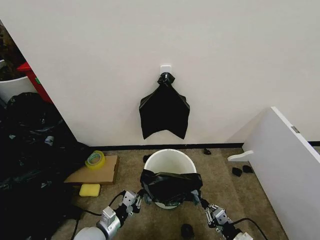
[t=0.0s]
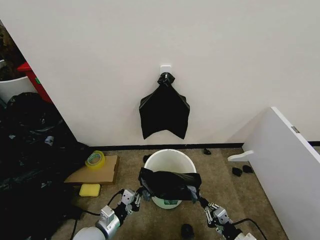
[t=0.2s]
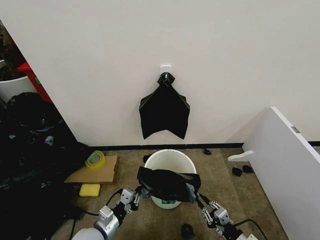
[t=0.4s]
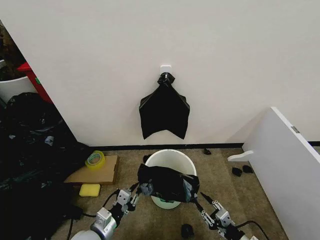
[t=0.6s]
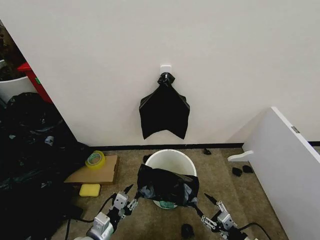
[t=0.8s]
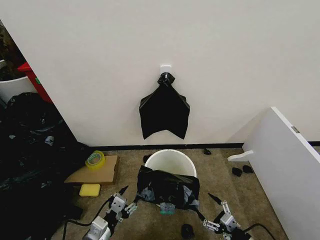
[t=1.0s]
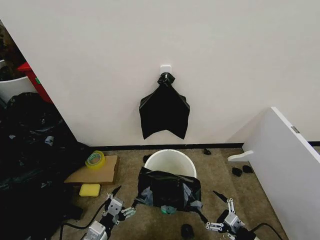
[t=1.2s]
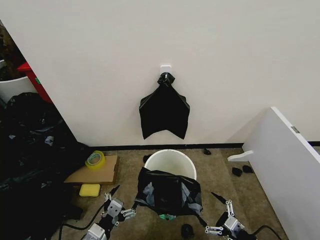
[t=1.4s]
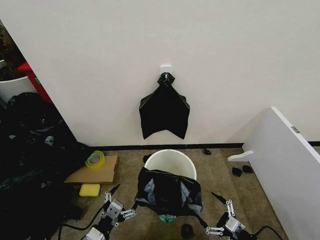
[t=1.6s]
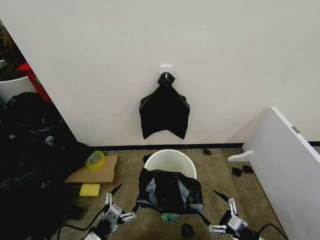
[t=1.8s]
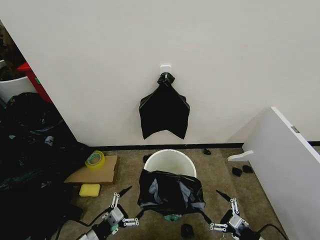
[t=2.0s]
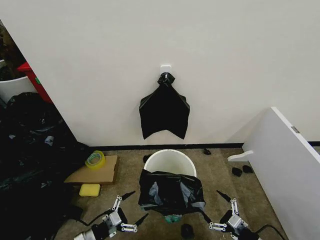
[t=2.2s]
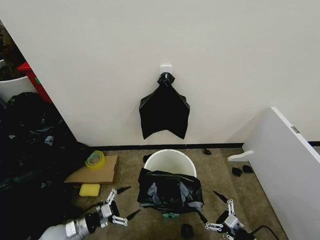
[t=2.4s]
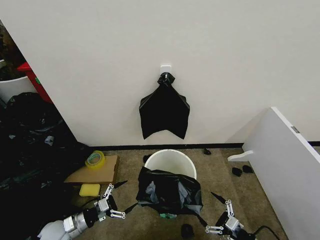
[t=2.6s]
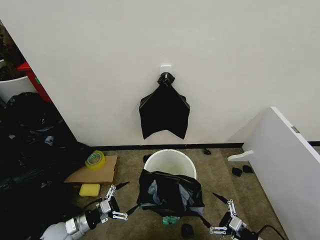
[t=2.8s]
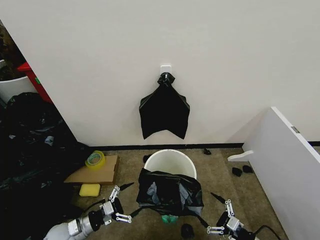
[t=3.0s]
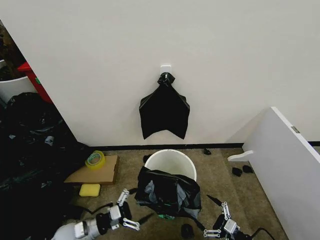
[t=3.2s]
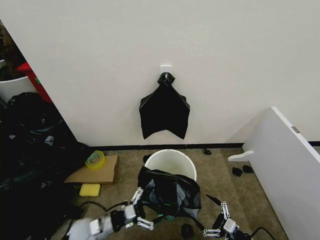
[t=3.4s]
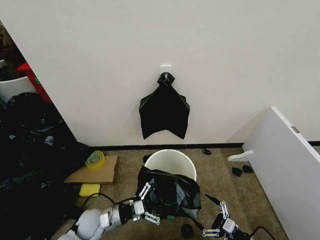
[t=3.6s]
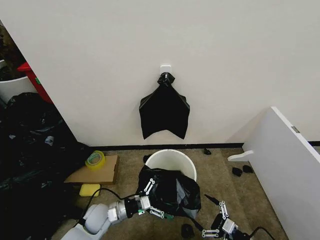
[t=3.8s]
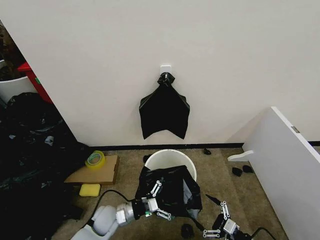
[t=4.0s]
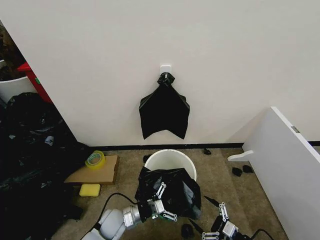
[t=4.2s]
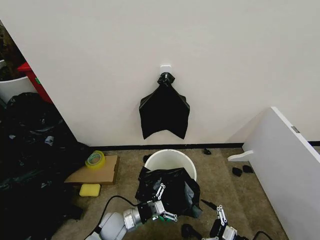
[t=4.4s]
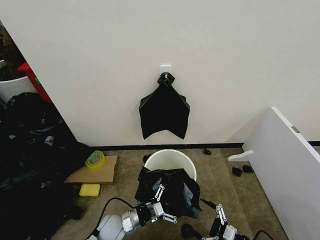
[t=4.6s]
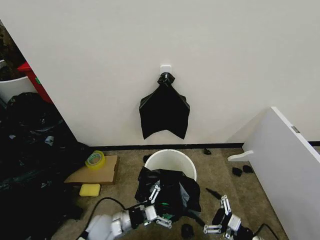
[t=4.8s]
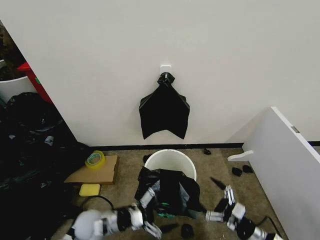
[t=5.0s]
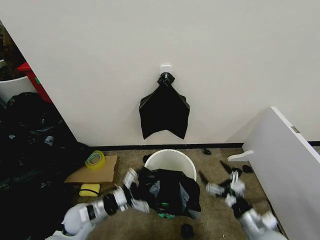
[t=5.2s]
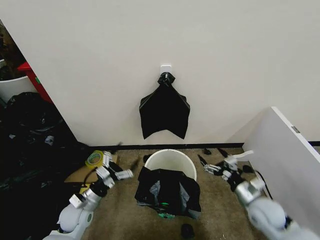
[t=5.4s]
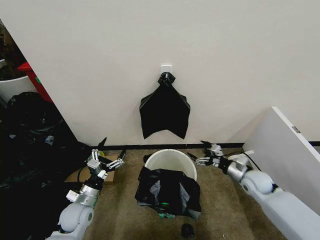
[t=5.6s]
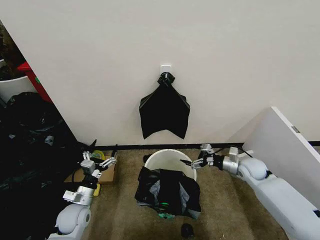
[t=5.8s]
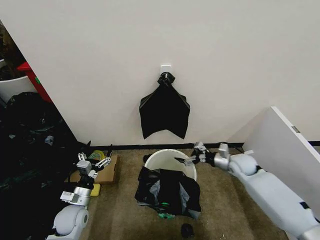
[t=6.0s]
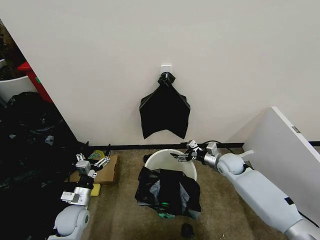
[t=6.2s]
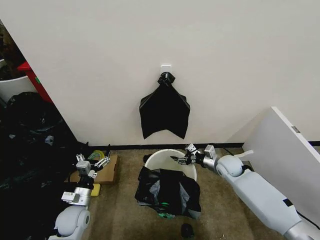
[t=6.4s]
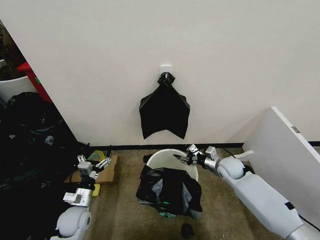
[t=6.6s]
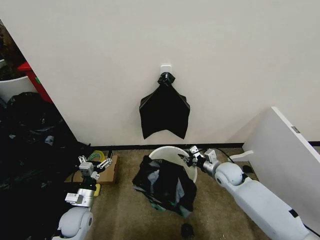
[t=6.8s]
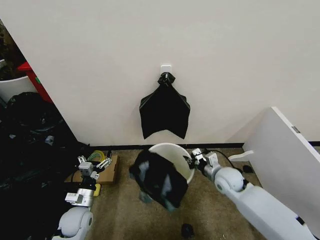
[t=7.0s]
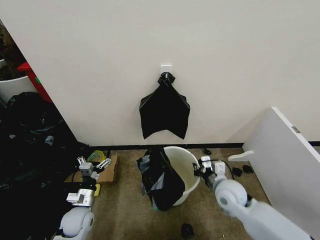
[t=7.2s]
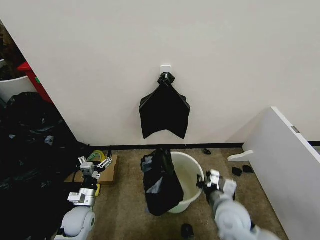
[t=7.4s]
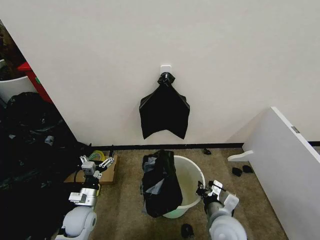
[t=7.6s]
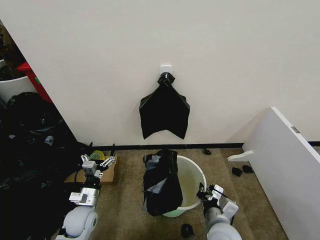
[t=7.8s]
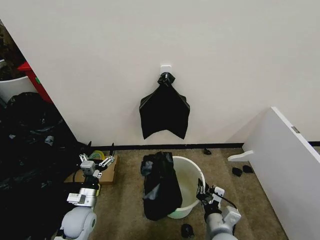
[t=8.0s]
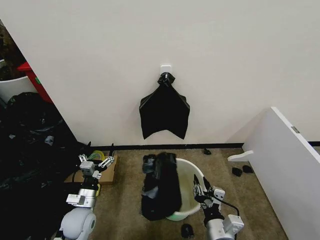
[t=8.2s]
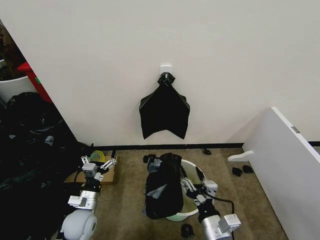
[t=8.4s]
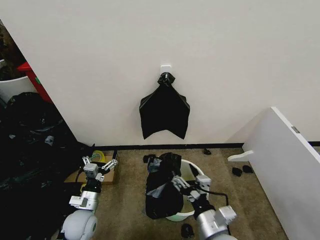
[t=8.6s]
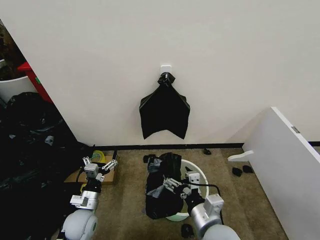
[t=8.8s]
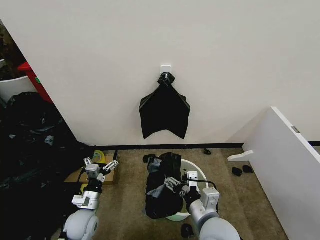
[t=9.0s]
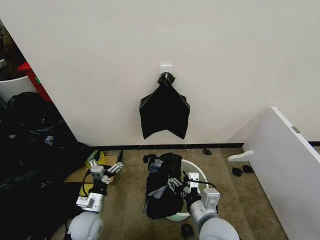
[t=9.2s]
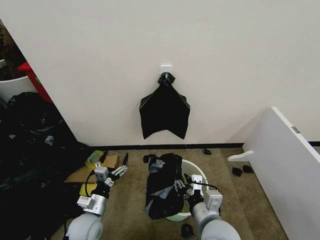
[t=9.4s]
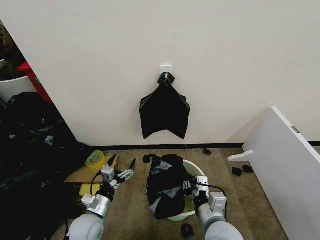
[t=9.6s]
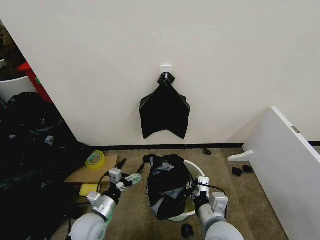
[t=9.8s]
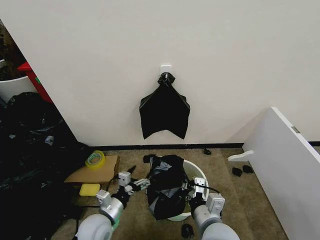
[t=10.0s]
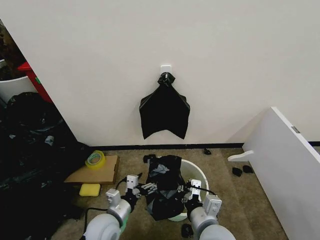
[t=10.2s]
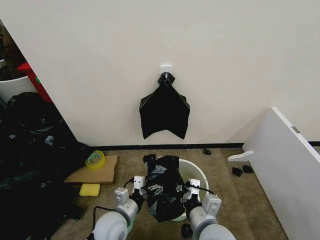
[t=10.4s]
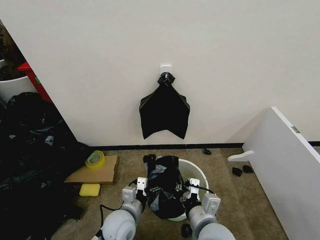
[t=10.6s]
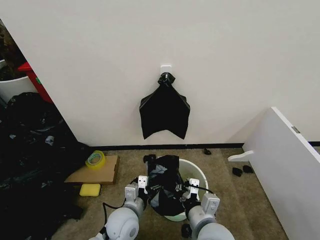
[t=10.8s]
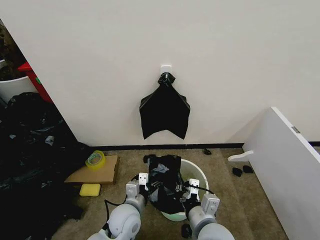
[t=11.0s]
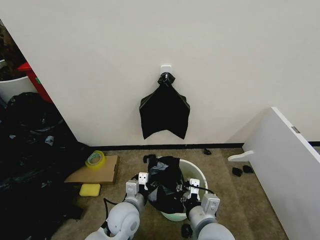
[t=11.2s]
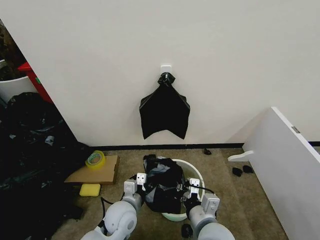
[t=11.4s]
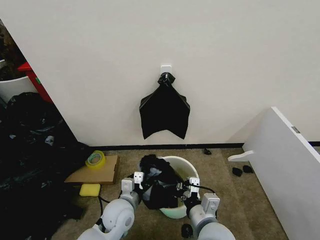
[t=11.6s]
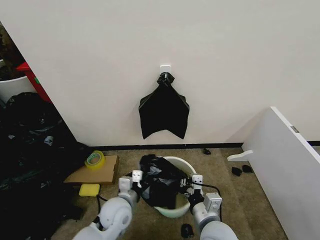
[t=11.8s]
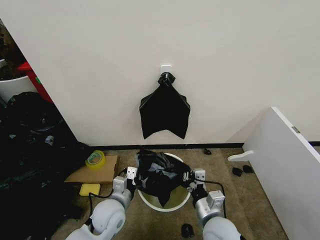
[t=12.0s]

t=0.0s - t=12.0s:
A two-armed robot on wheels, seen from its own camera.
Task of the whole recording: Place the garbage bag over the trash bin.
t=0.0s - t=1.6s: The left gripper travels backward and upward by roughly 10 cm, and opens its fingers. Meanwhile the right gripper changes place by approximately 5 cm, and opens up.
t=1.6s - t=3.0s: The left gripper shifts about 15 cm to the left, forward and downward.
t=3.0s - t=4.4s: The left gripper heads to the right, covering about 15 cm.
t=4.4s - t=6.0s: The left gripper is displaced to the left by roughly 15 cm. Meanwhile the right gripper travels forward by about 30 cm.
t=6.0s - t=7.6s: The right gripper shifts about 25 cm backward and to the left, and closes its fingers.
t=7.6s - t=9.0s: The right gripper shifts about 10 cm upward and to the left, and opens.
t=9.0s - t=10.4s: The right gripper closes its fingers, while the left gripper goes approximately 10 cm to the right.
t=10.4s - t=12.0s: The right gripper ends up roughly 5 cm from where it was, while the left gripper closes.

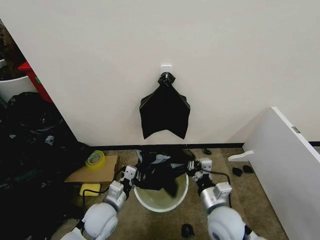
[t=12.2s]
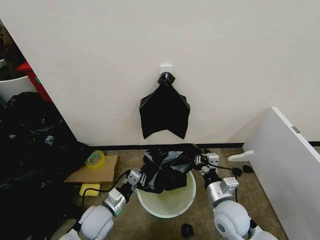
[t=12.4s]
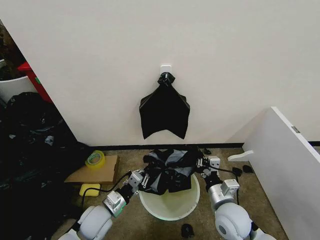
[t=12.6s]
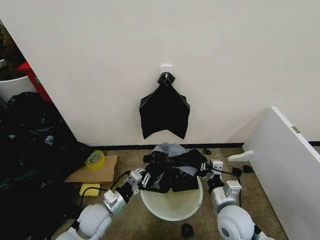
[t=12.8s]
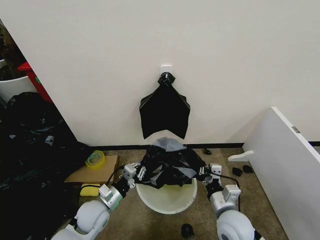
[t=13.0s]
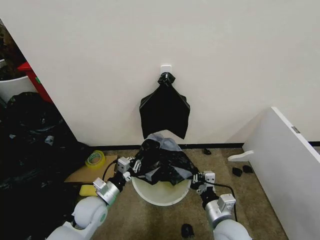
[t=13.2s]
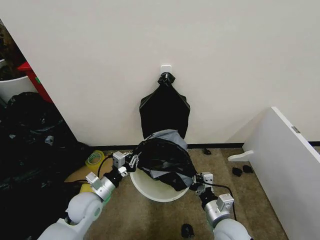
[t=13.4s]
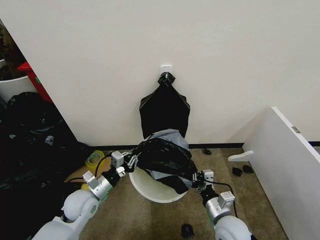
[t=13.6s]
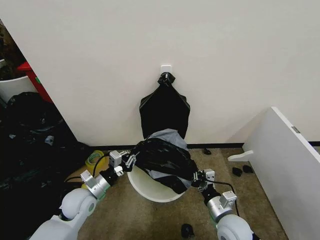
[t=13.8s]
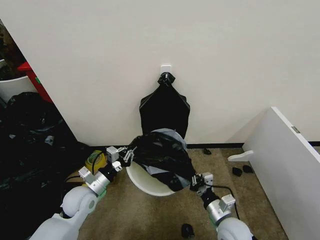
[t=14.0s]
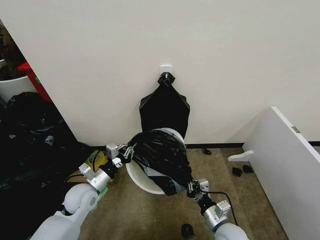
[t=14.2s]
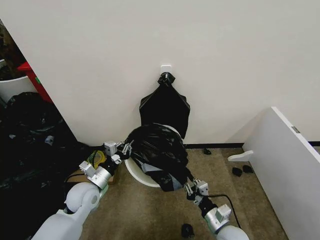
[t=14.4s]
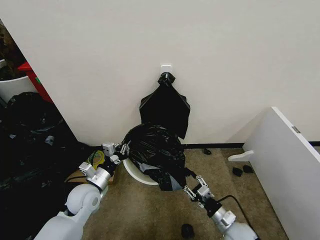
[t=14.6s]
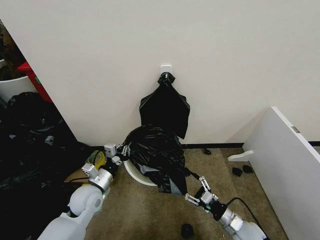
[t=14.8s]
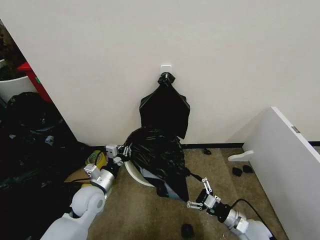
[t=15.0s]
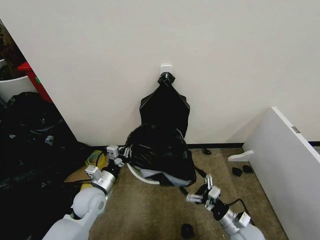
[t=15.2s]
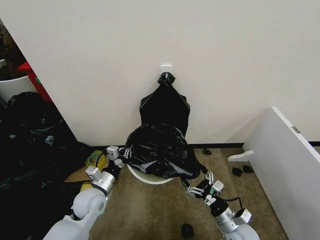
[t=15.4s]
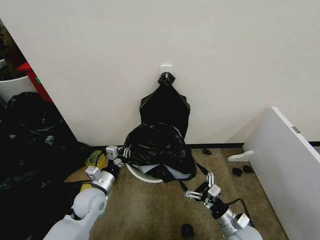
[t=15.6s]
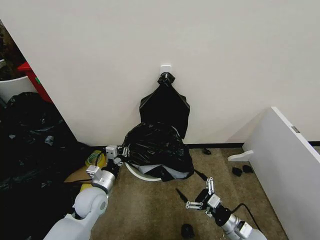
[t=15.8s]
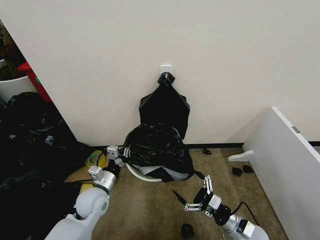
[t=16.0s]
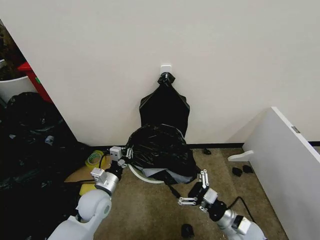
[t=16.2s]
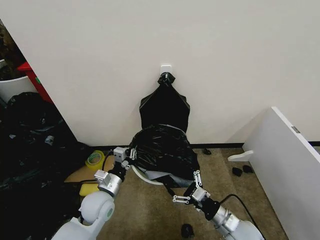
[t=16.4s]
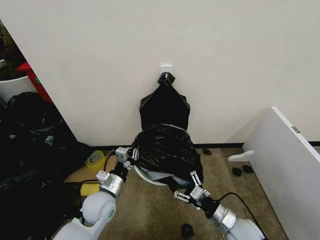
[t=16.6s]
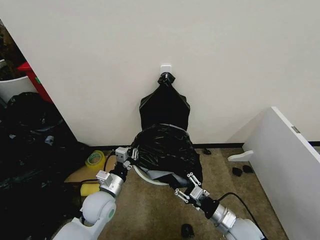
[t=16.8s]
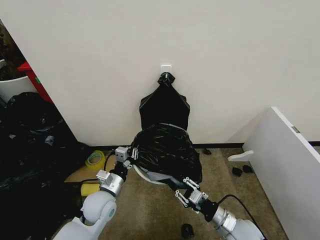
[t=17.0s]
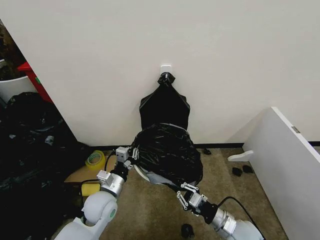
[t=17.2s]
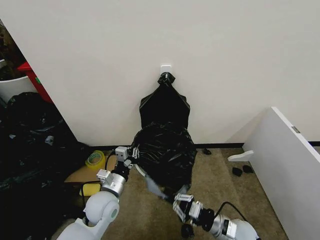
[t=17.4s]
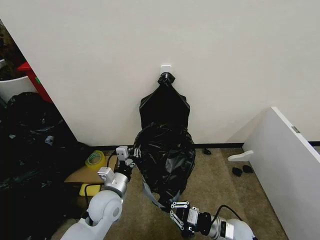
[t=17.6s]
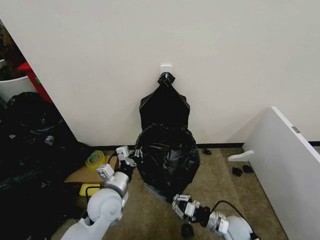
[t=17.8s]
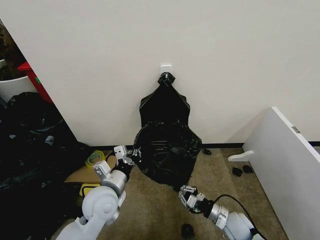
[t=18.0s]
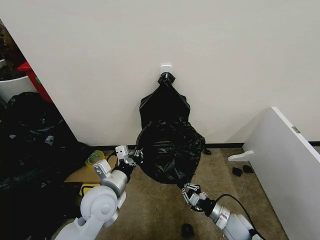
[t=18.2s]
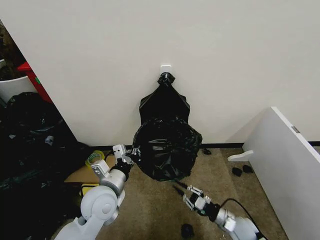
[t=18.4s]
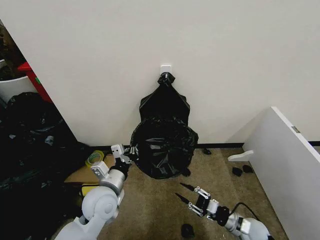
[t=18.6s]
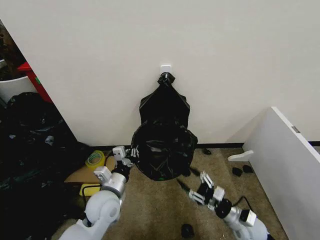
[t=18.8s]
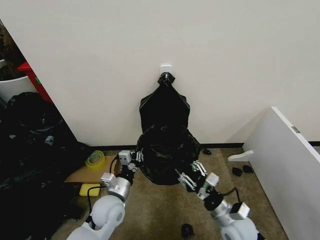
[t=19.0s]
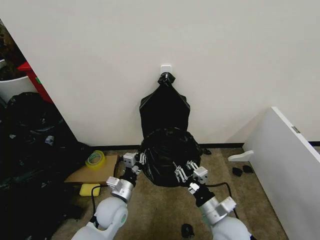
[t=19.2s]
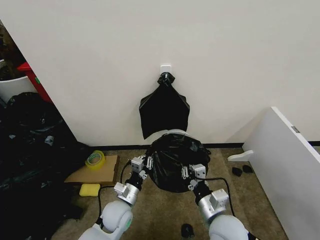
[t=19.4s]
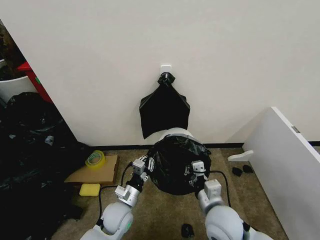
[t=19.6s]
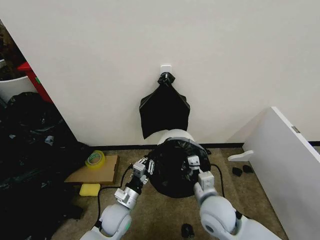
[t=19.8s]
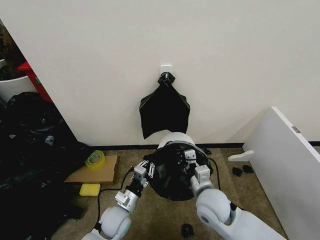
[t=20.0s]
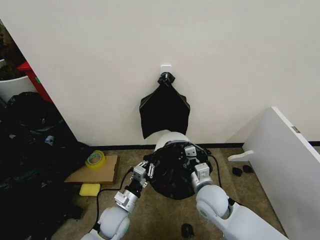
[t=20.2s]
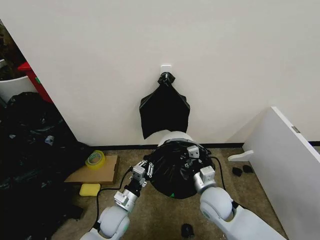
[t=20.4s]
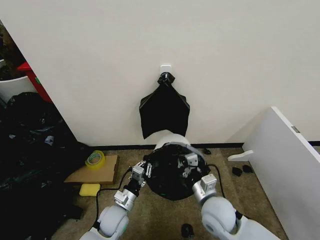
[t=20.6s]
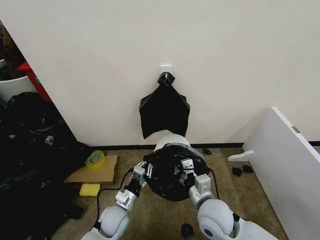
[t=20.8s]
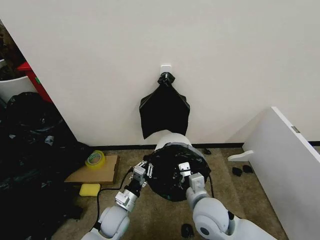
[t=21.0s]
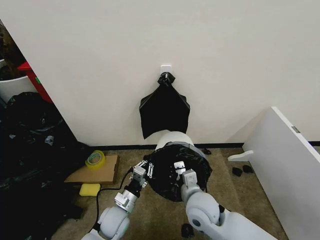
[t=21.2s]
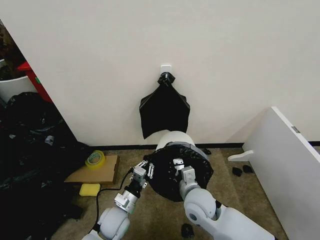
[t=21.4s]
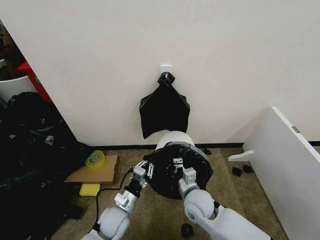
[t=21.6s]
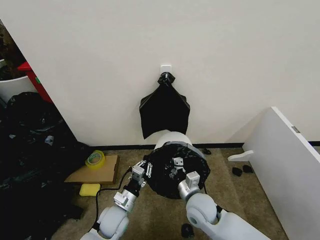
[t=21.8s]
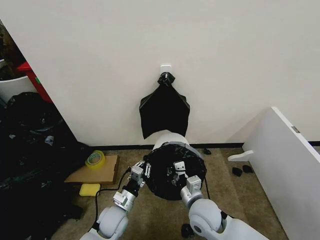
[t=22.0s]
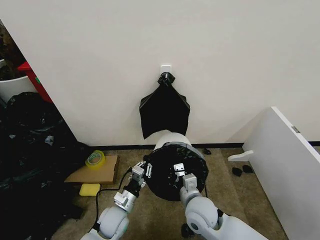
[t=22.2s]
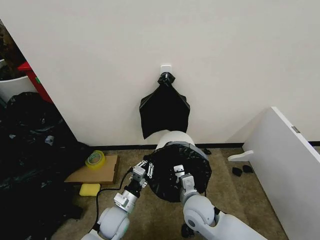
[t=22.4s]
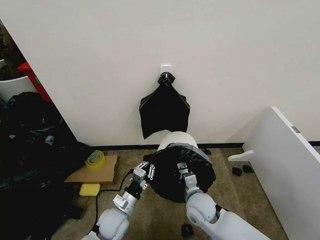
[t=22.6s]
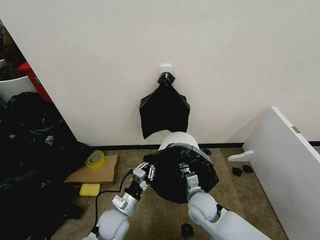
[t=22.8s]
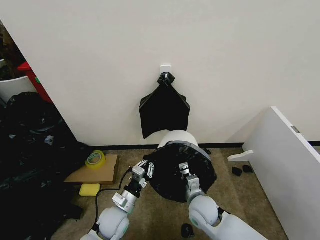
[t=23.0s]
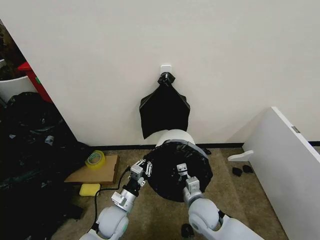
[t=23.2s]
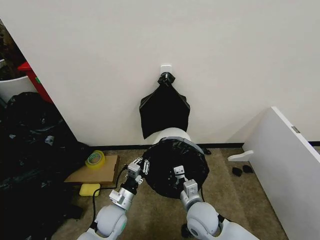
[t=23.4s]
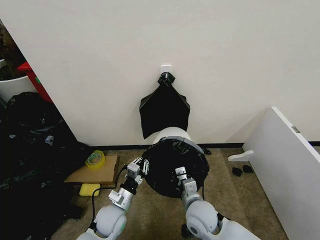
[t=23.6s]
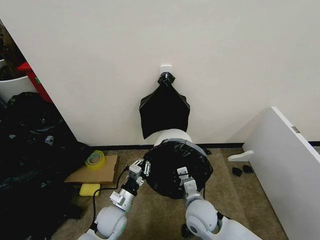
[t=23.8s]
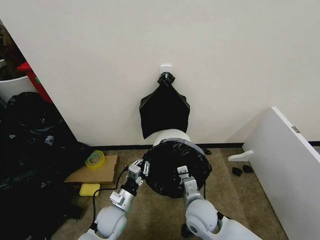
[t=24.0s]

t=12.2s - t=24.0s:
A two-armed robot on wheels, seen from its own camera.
Task of the whole recording: Place the garbage bag over the trash bin.
t=12.2s - t=13.6s: The right gripper moves some 5 cm. The left gripper goes about 5 cm to the left.
t=13.6s - t=15.2s: The right gripper heads to the right and downward, covering roughly 10 cm, and opens its fingers.
t=15.2s - t=16.6s: The right gripper heads upward, covering approximately 5 cm.
t=16.6s - t=18.2s: The left gripper is displaced upward by approximately 10 cm. Meanwhile the right gripper travels downward by approximately 10 cm, and closes its fingers.
t=18.2s - t=19.6s: The right gripper heads upward and to the left, covering roughly 20 cm, and opens and closes again. Meanwhile the left gripper shifts about 15 cm downward.
t=21.0s - t=22.6s: The right gripper shifts approximately 10 cm downward.
t=22.6s - t=24.0s: There are only small adjustments of the grippers.